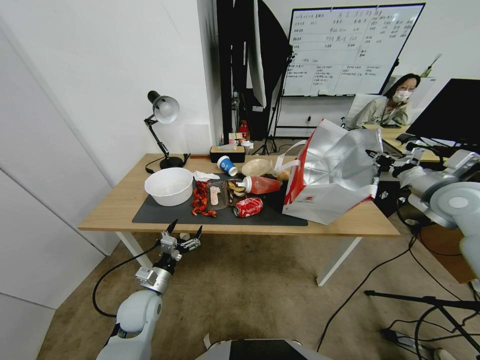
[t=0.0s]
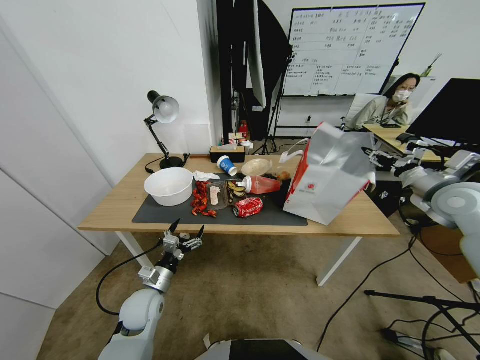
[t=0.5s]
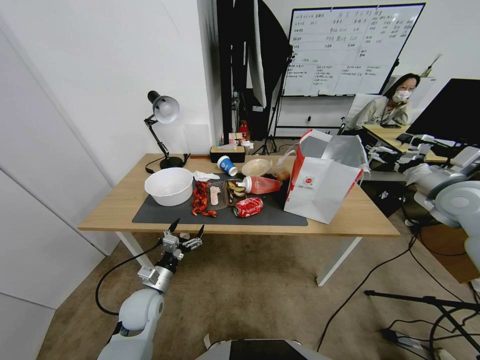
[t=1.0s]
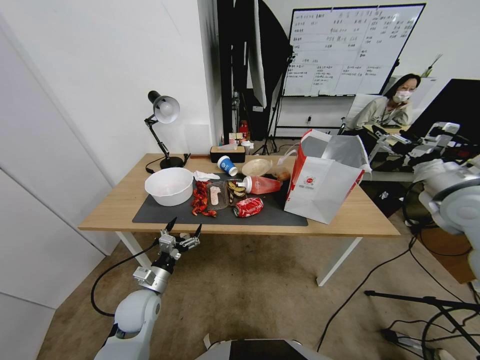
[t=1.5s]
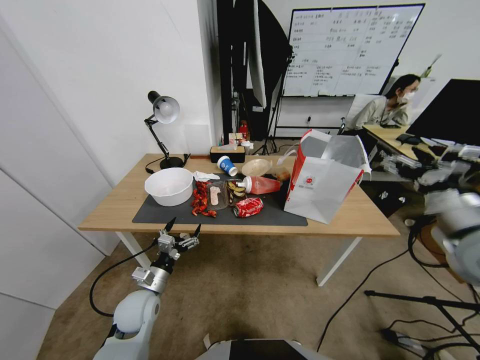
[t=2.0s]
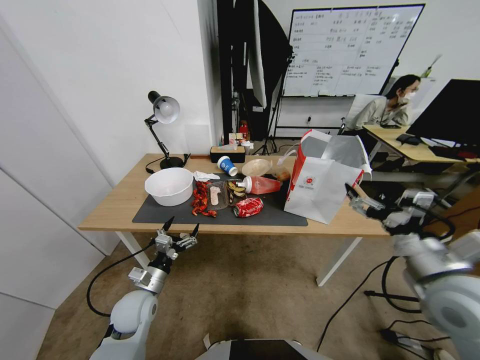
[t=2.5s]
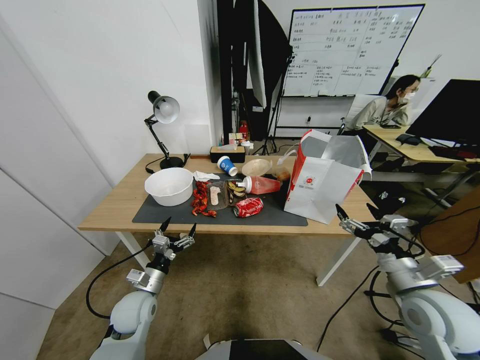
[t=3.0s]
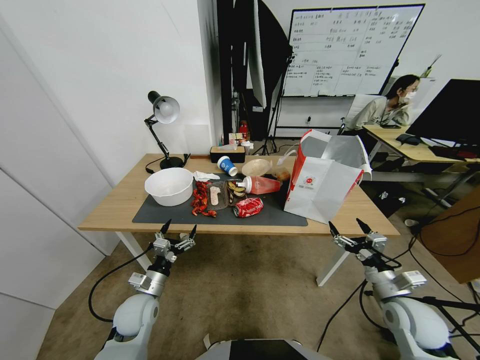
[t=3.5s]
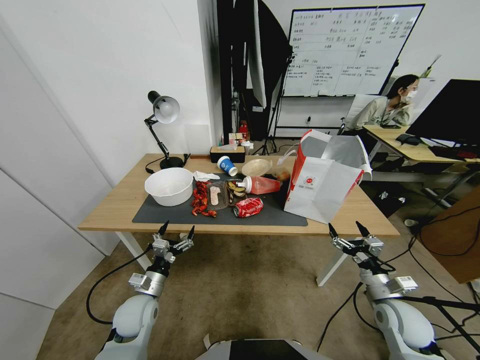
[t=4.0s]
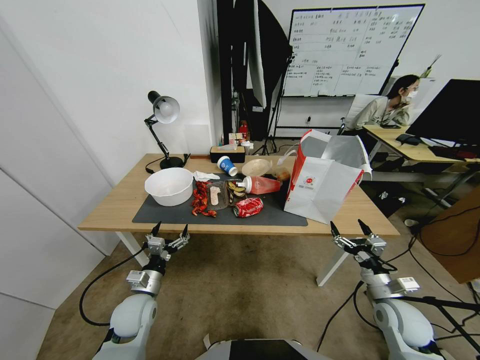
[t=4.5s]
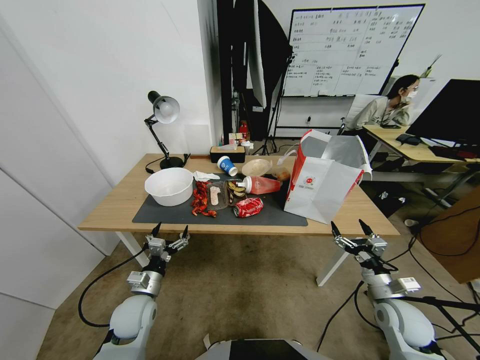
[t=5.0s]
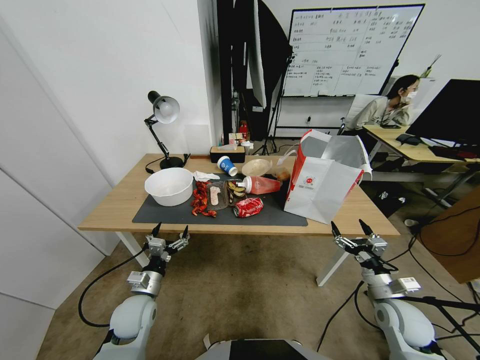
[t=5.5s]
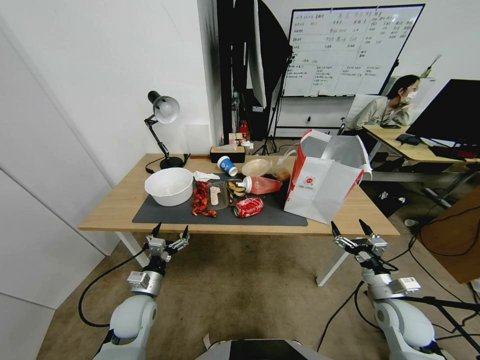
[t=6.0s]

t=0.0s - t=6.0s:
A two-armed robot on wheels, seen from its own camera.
Task of the whole recording: Pick up the food delivery bag from the floor and place it on the table.
t=0.0s - t=2.0s: The right gripper is displaced backward and to the left by about 20 cm, and opens.
t=2.0s - t=4.0s: The right gripper shifts roughly 25 cm downward.
t=4.0s - t=6.0s: The grippers make only small movements.
